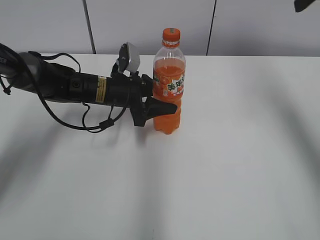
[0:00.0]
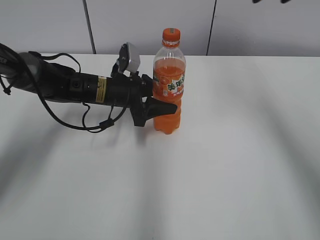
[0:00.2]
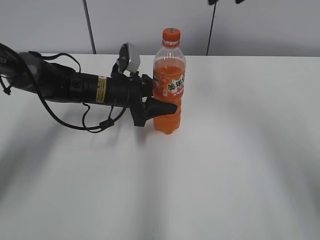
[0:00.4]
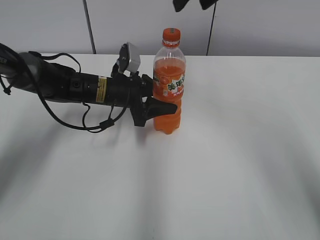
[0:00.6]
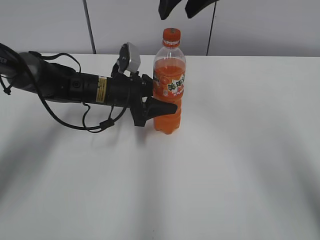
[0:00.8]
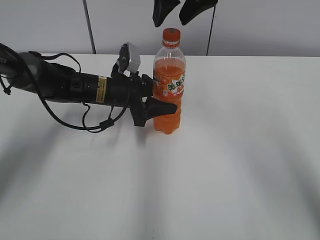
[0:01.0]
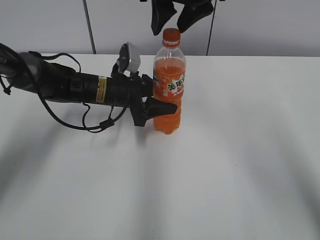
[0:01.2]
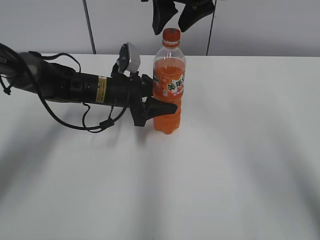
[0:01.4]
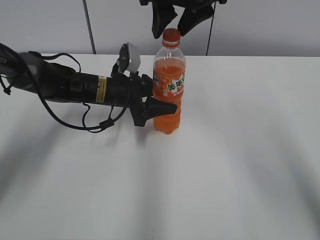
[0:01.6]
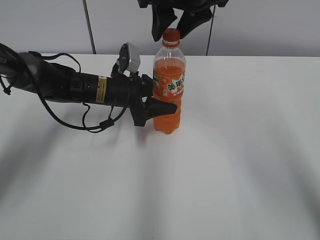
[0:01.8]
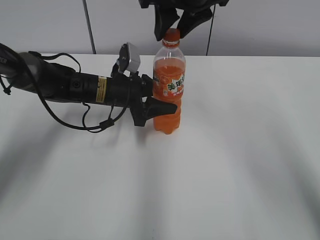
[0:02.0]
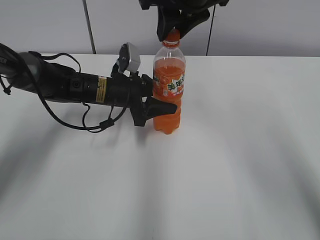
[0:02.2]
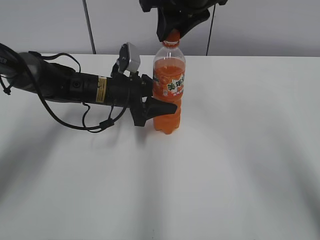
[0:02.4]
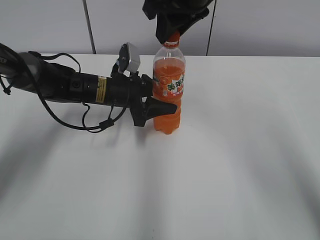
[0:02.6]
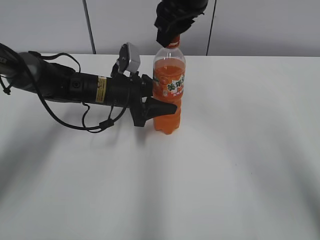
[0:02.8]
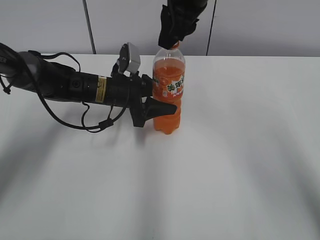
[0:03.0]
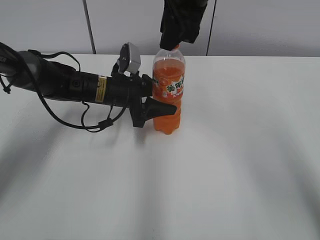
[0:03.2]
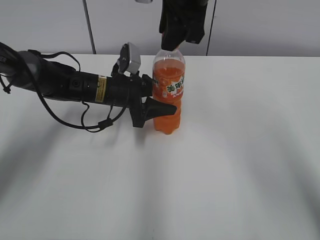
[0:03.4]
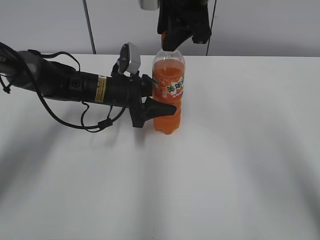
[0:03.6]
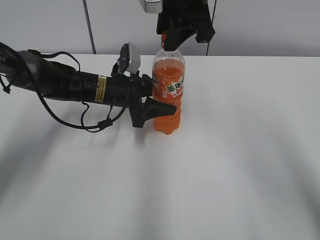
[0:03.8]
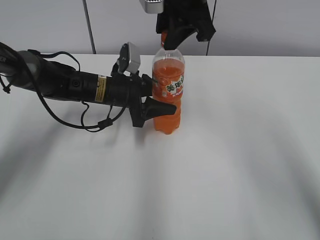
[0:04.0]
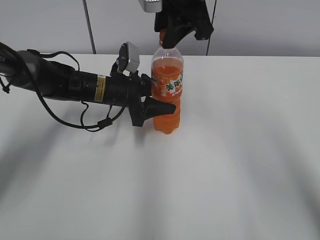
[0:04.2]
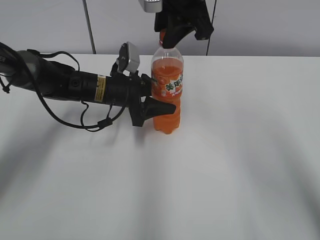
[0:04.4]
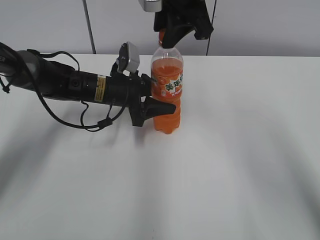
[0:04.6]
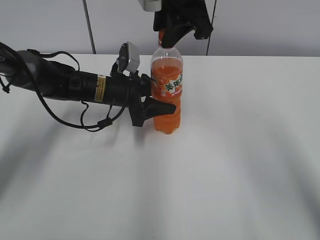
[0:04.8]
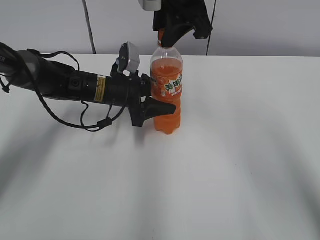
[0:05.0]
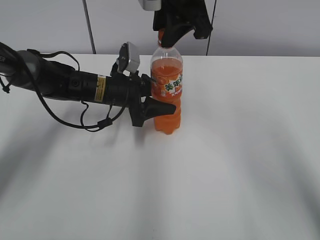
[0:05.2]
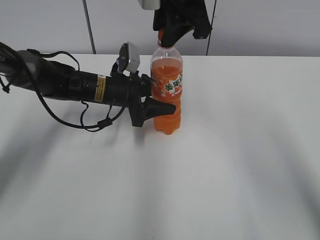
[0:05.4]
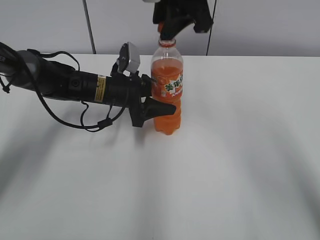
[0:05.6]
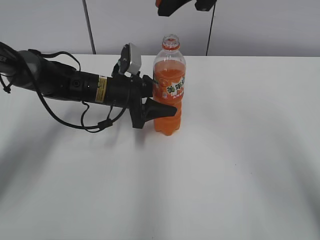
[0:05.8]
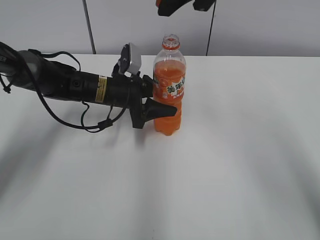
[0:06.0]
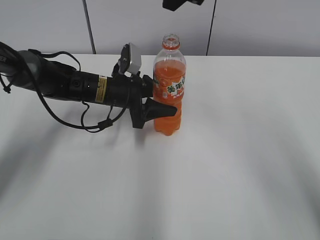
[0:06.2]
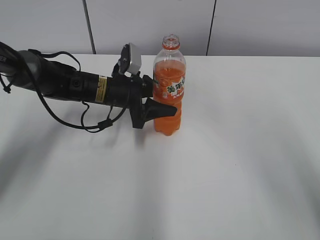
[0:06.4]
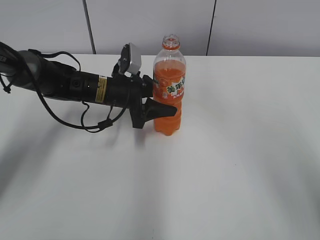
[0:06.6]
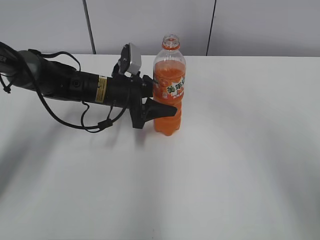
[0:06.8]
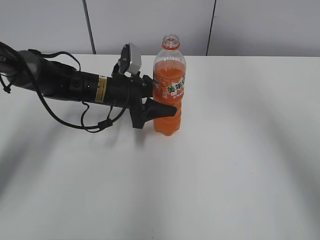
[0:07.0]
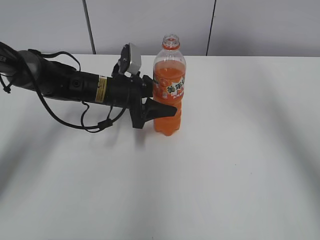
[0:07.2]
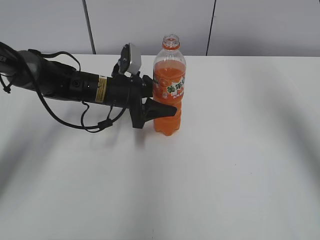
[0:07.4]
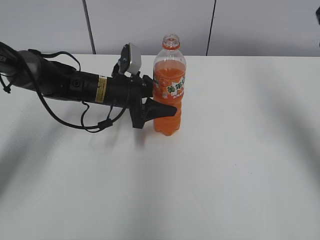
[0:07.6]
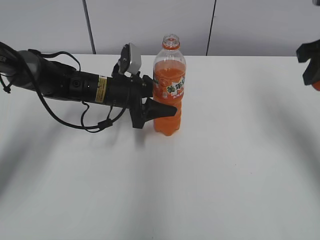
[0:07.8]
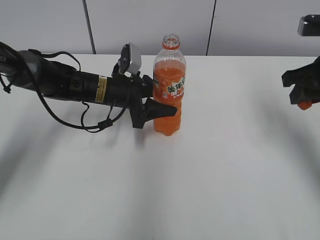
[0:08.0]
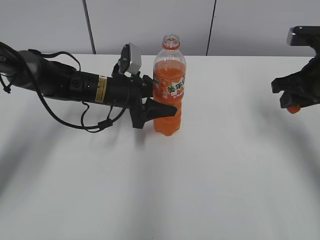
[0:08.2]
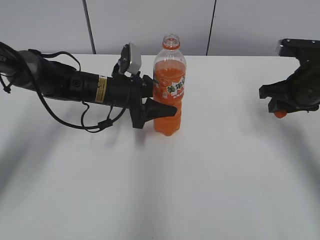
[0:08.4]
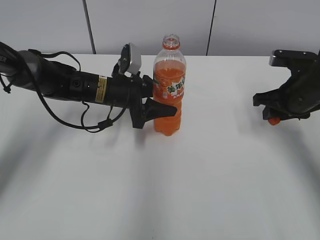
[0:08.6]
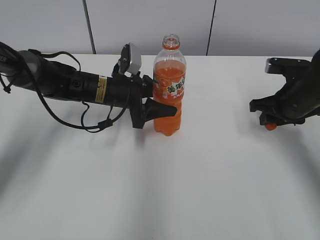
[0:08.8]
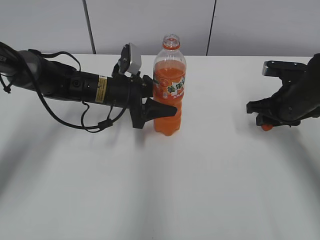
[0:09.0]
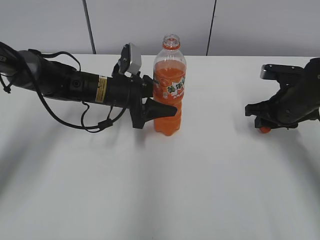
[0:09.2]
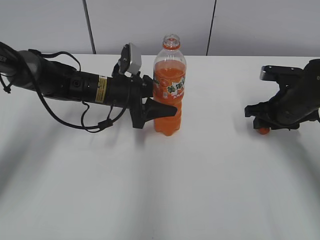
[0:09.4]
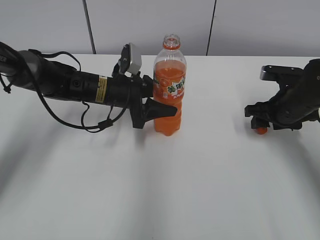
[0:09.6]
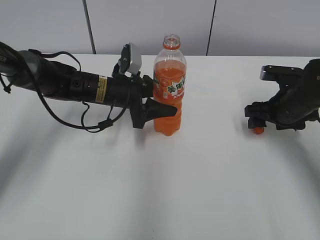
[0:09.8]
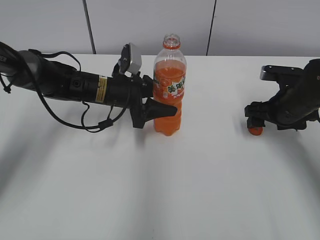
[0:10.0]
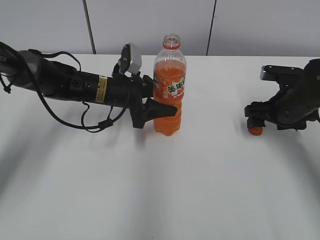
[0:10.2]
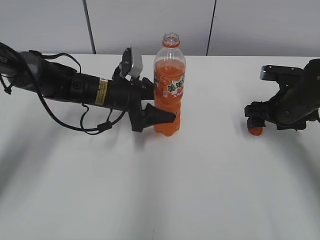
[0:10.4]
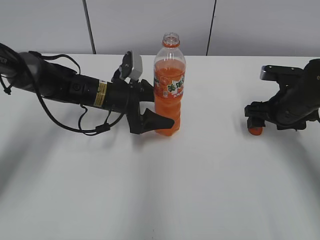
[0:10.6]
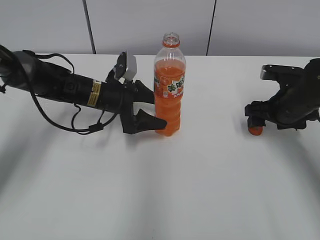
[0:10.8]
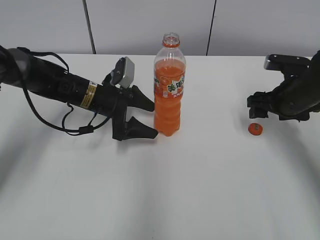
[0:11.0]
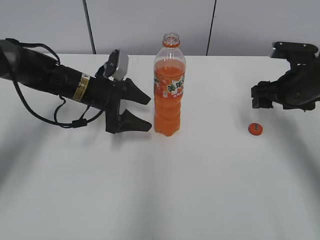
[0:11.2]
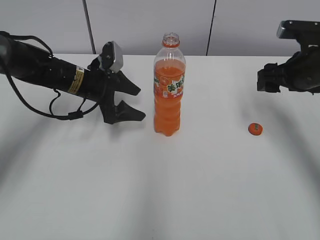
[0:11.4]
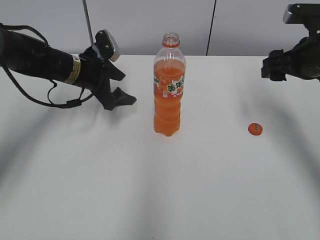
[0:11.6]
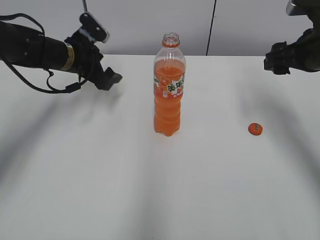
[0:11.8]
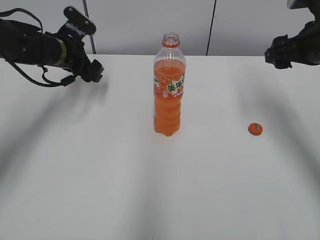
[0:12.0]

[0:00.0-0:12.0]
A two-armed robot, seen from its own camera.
Step, 0:05.8 to 0:09.8: Place the bottle cap on the right.
Step, 0:10.0 to 0:10.6: Place the Mirinda with the left hand.
0:00.0 to 0:01.6: The right gripper heads to the left, covering about 20 cm.
0:01.6 to 0:03.0: The right gripper closes its fingers.
0:04.4 to 0:06.0: The grippers make only small movements.
0:06.0 to 0:07.6: The right gripper travels to the right by approximately 20 cm.
0:07.6 to 0:09.0: The right gripper moves downward, roughly 25 cm.
0:09.0 to 0:10.4: The right gripper opens its fingers.
0:10.4 to 0:12.0: The right gripper heads upward, covering about 15 cm. The left gripper shifts some 15 cm to the left, forward and upward.

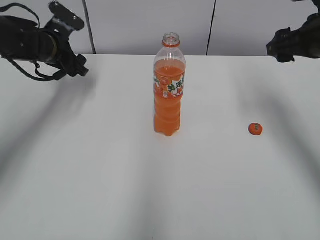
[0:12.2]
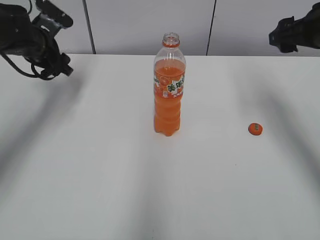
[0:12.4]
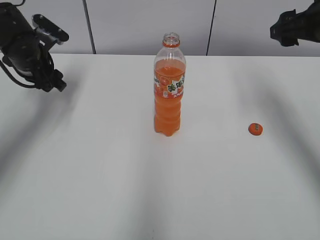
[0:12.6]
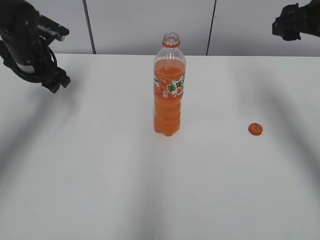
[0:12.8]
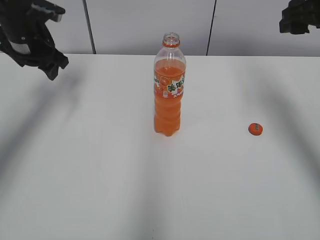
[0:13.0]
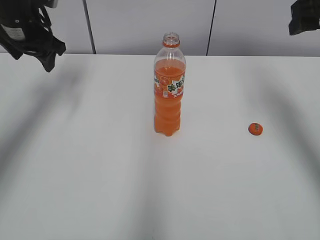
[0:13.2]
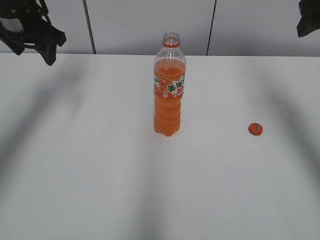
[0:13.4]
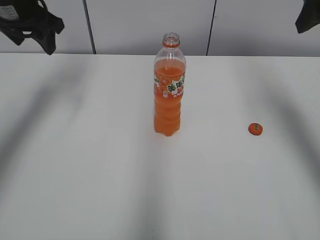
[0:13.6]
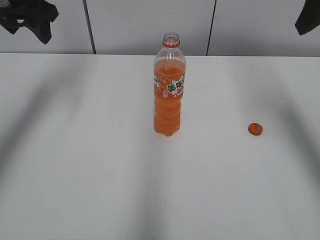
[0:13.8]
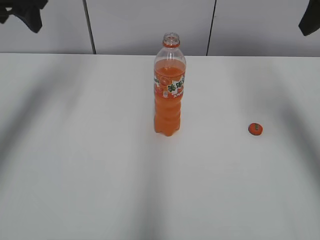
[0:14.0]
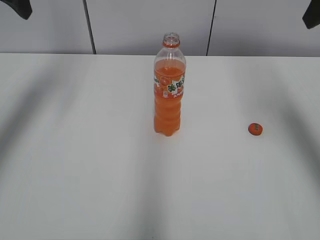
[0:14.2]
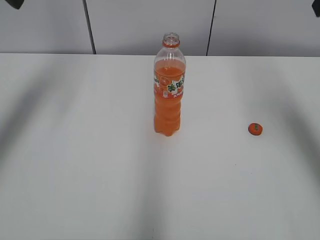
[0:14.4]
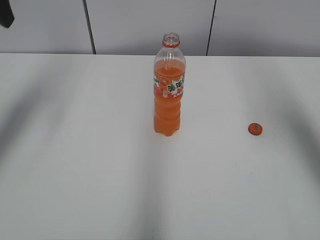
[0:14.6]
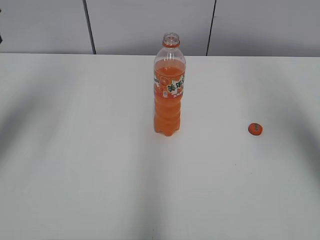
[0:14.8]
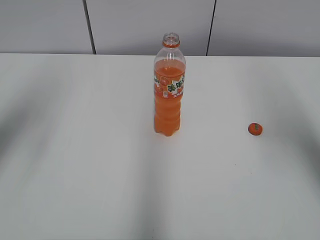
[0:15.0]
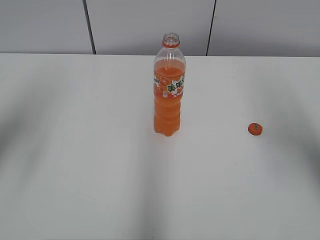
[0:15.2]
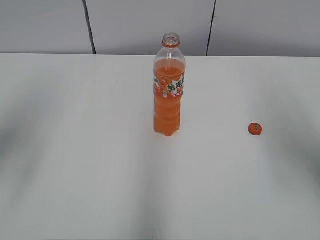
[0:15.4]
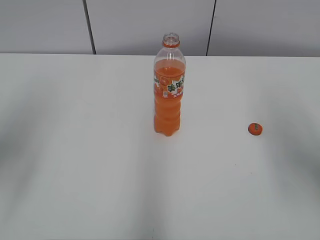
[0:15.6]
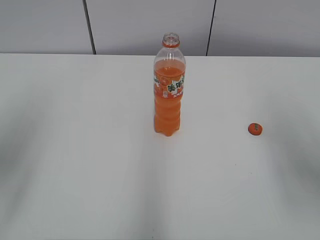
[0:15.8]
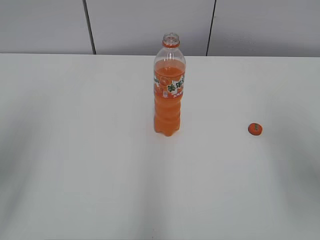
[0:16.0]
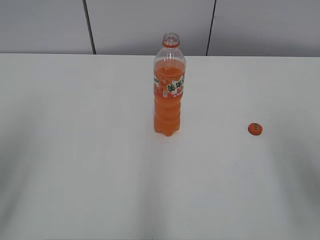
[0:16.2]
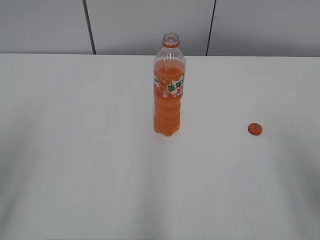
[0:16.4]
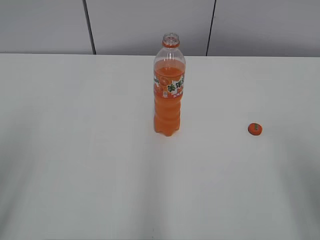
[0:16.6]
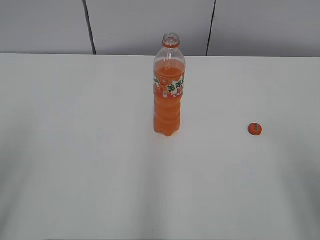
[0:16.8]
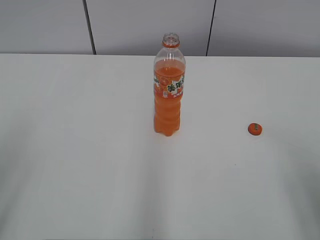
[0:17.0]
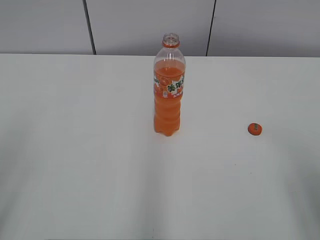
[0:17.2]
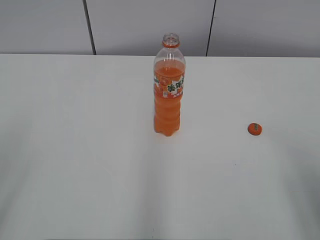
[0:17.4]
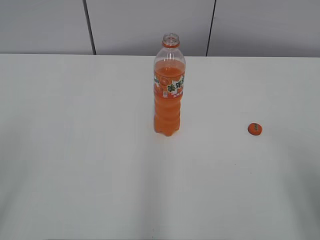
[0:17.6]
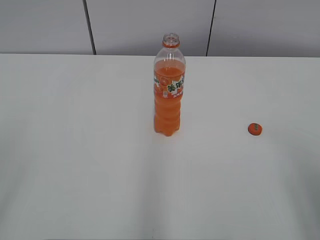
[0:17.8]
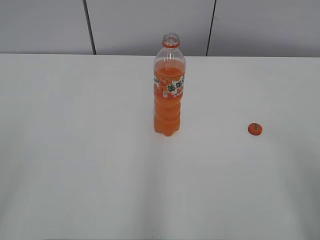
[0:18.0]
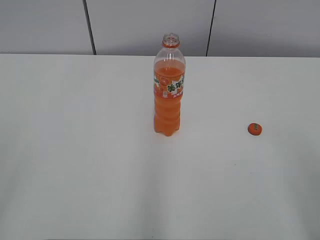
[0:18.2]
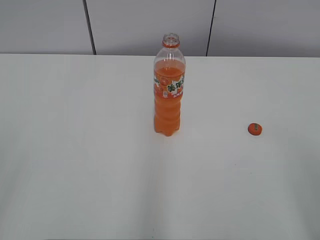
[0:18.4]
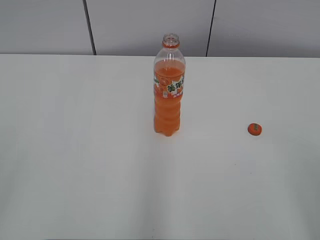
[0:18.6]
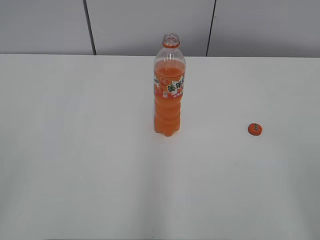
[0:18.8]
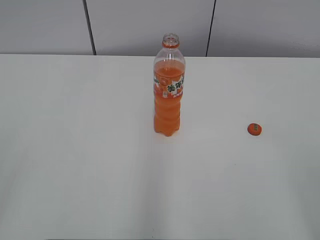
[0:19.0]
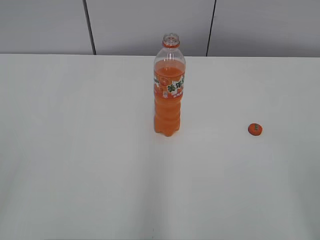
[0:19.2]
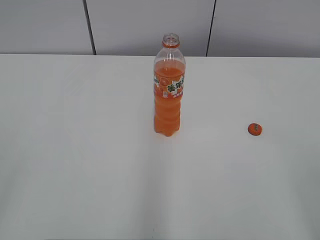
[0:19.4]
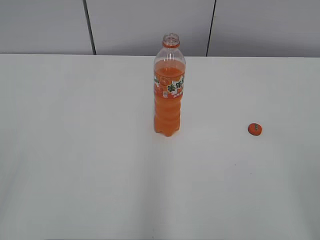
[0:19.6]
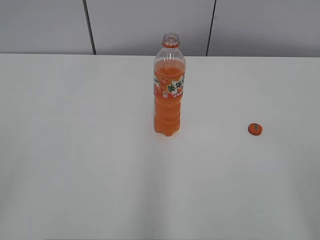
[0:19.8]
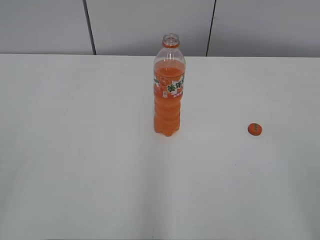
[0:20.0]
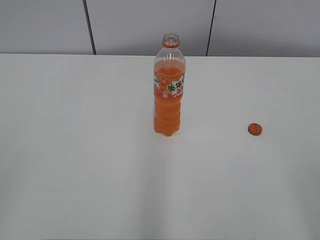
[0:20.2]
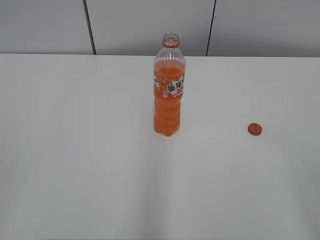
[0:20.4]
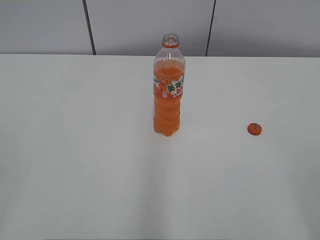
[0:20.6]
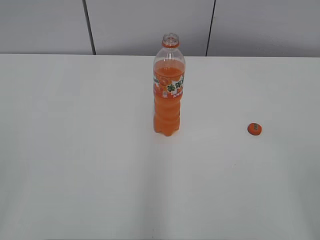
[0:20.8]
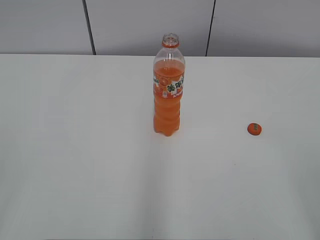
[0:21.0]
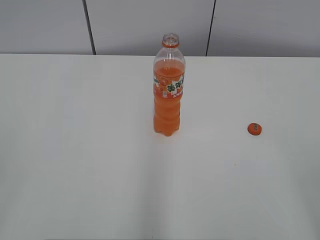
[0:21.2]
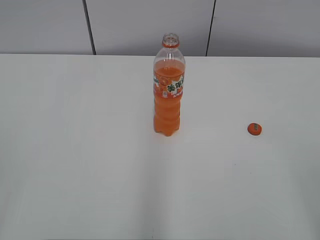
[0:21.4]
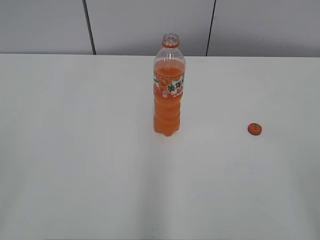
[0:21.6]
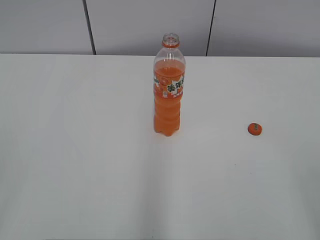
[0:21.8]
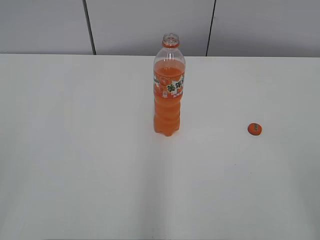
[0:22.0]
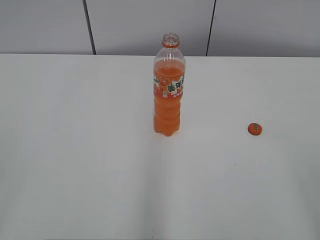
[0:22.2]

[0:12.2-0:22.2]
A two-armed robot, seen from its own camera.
0:12.2 to 0:13.6: Both grippers move upward, some 10 cm.
0:13.6 to 0:15.0: The left gripper moves backward and upward, approximately 15 cm. Meanwhile the right gripper is displaced backward by some 10 cm.
0:15.0 to 0:16.4: Both grippers move backward and downward, roughly 20 cm.
